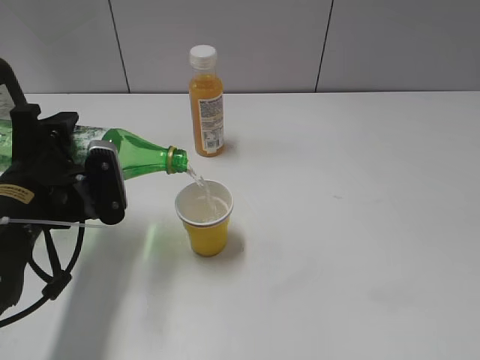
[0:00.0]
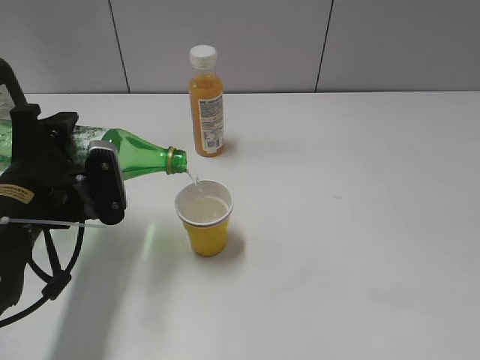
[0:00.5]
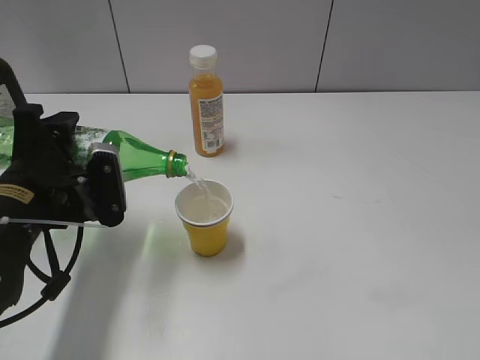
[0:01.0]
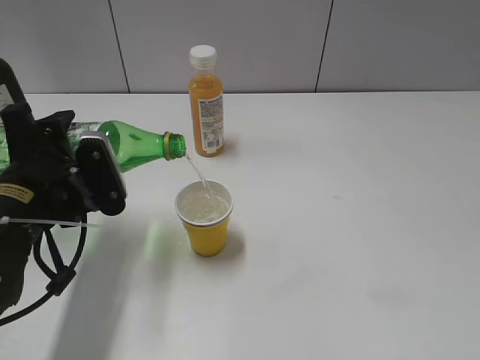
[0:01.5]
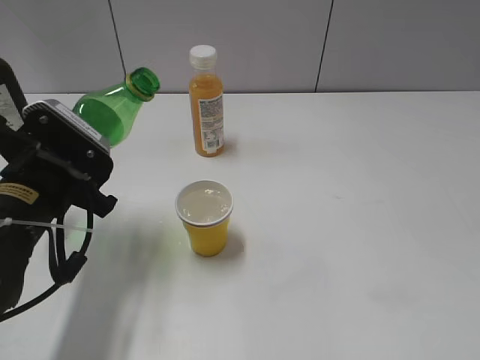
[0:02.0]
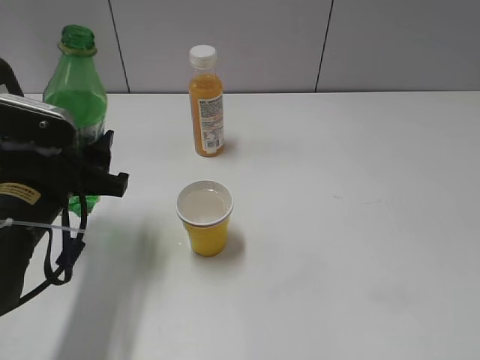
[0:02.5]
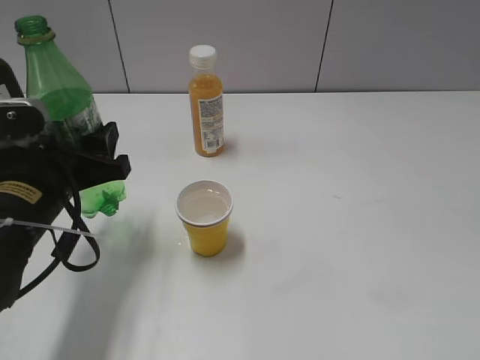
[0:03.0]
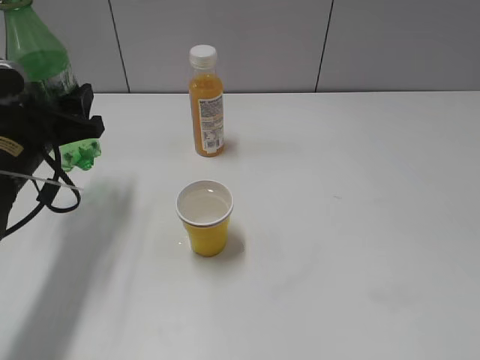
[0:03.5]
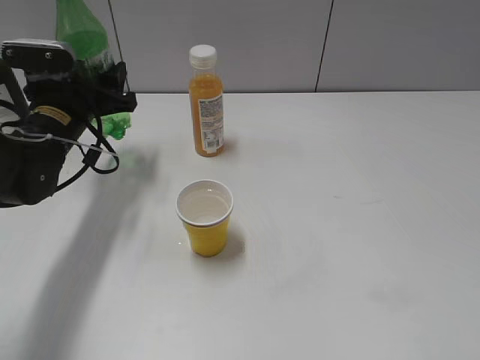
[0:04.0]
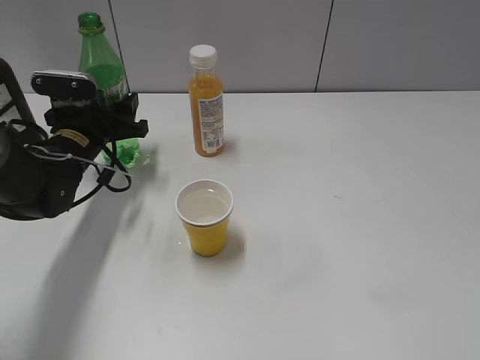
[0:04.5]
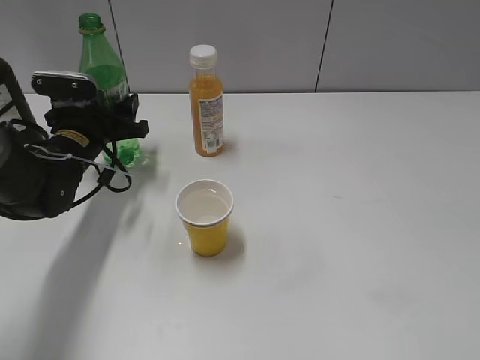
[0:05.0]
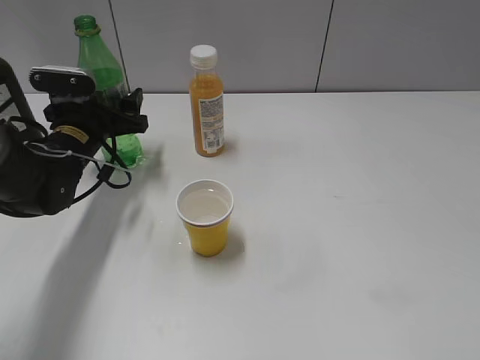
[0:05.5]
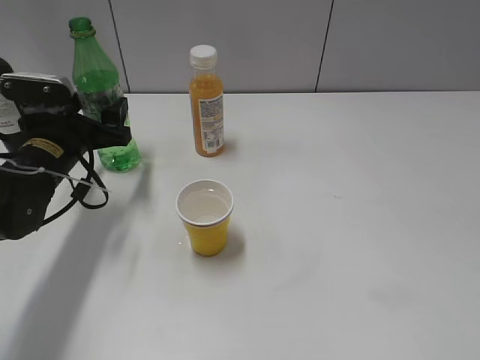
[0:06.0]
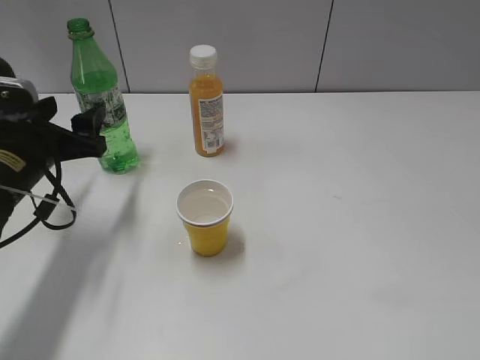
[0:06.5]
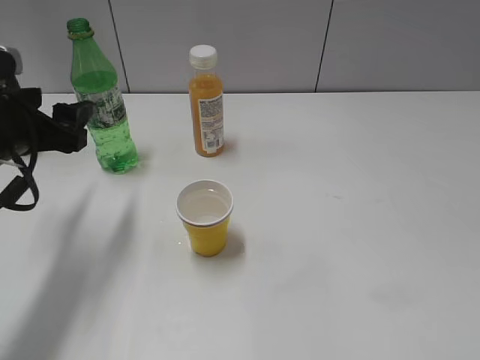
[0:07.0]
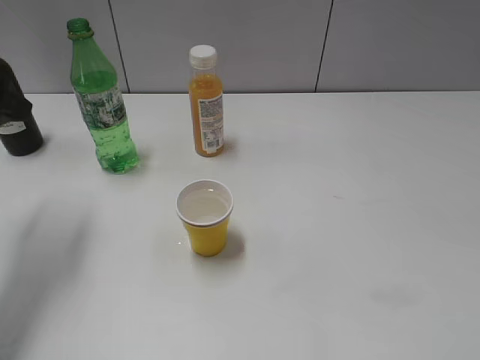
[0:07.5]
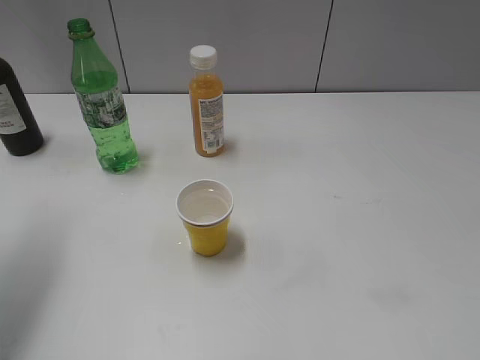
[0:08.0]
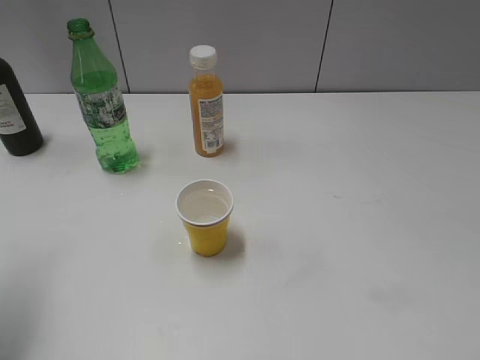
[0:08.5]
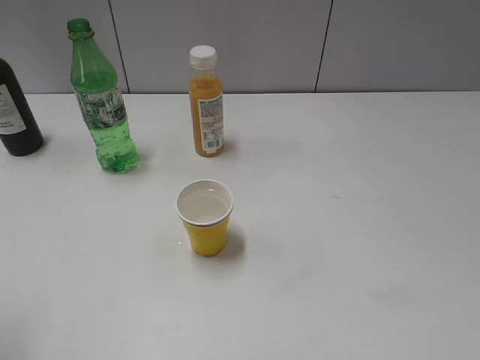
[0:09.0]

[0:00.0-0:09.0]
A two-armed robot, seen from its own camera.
Step, 0:02.0 to 0:06.0: Place the sprite bottle on the table with left gripper.
0:02.0 to 0:04.5: The left gripper moves forward, approximately 15 cm.
0:04.5 to 0:07.0: The left gripper is displaced backward and upward by some 15 cm.
0:07.0 to 0:09.0: The left gripper goes about 20 cm backward and upward.

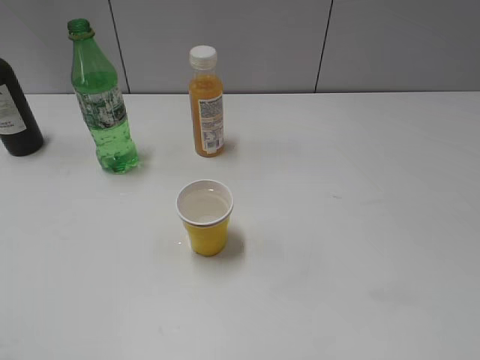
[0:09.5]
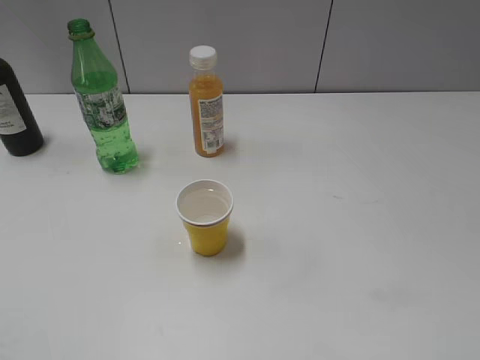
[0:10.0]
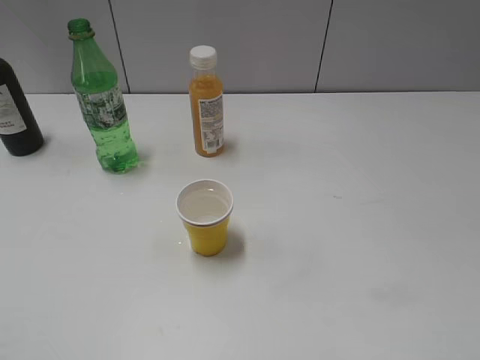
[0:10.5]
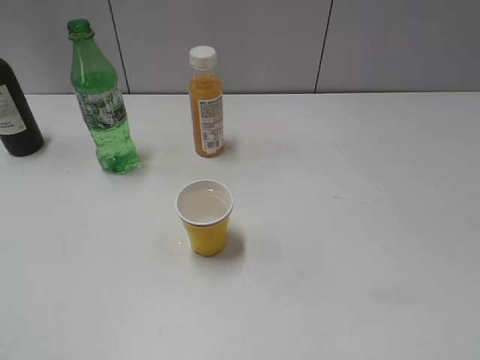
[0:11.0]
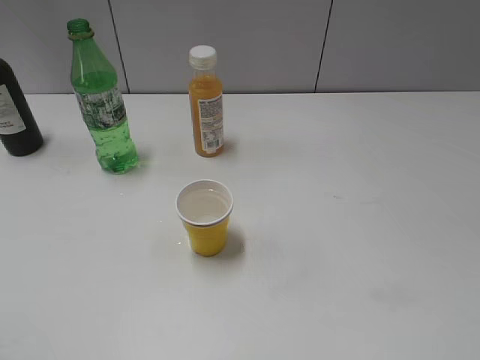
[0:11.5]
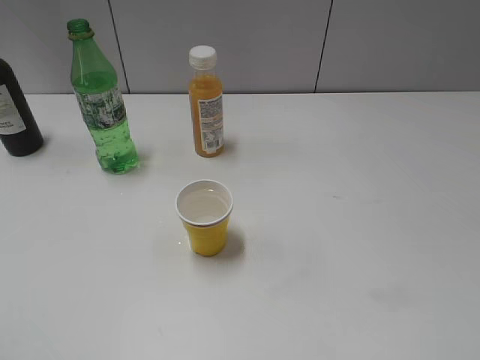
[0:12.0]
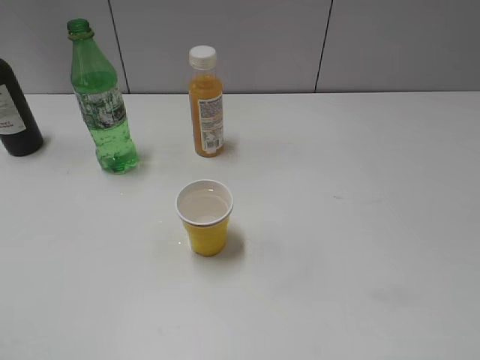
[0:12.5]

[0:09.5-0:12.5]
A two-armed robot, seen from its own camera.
0:11.0 to 0:12.5: Neither gripper changes place.

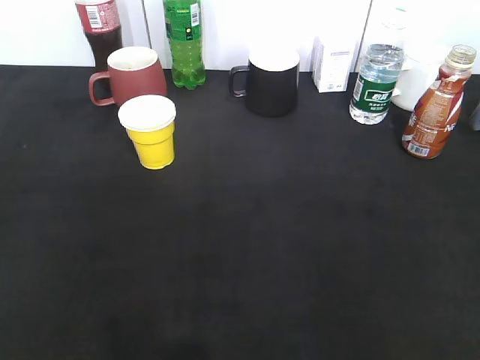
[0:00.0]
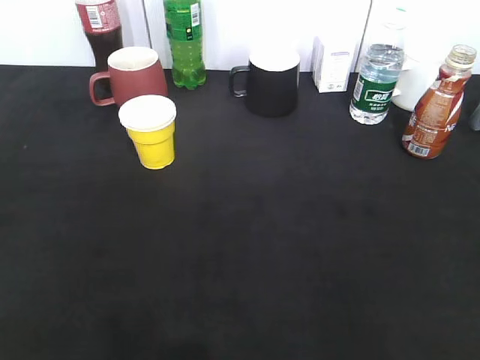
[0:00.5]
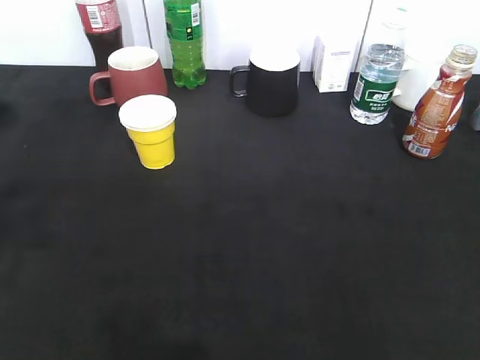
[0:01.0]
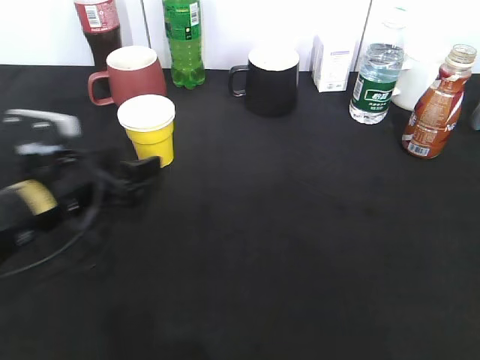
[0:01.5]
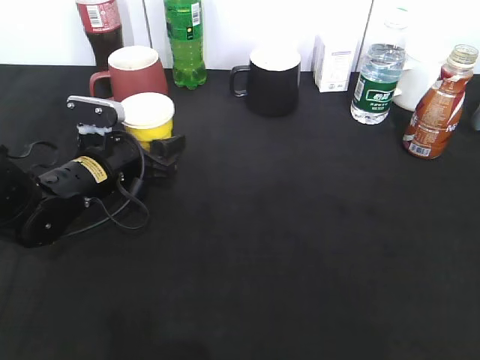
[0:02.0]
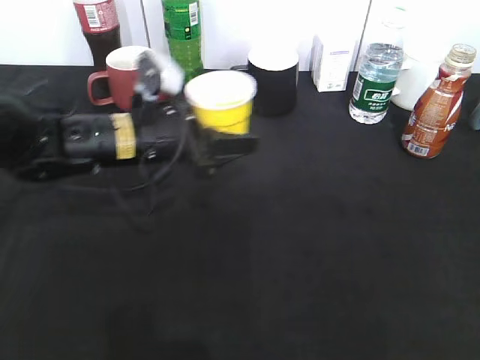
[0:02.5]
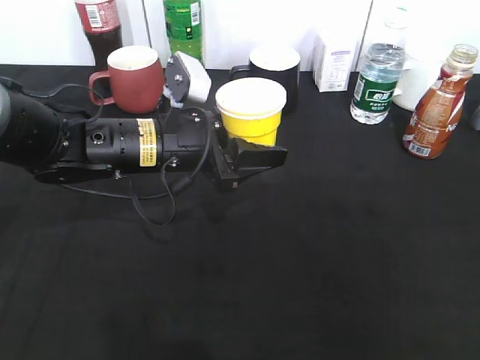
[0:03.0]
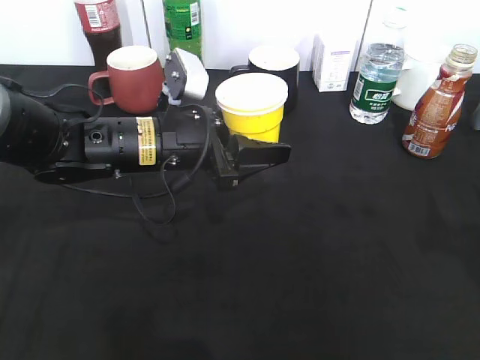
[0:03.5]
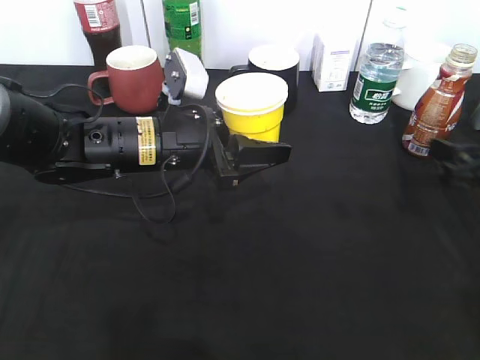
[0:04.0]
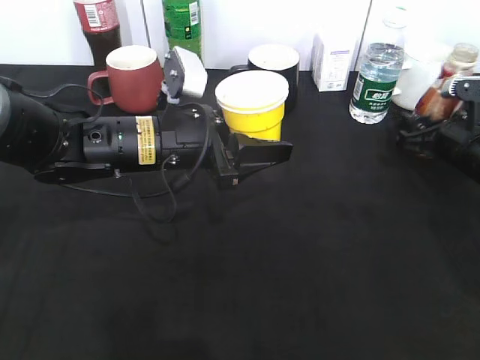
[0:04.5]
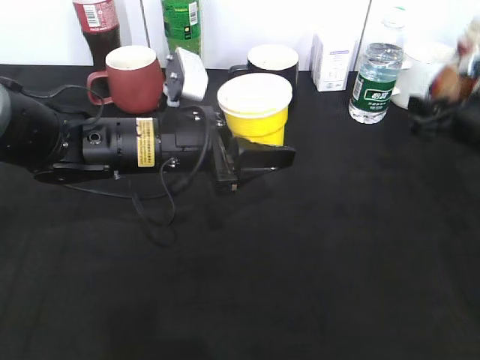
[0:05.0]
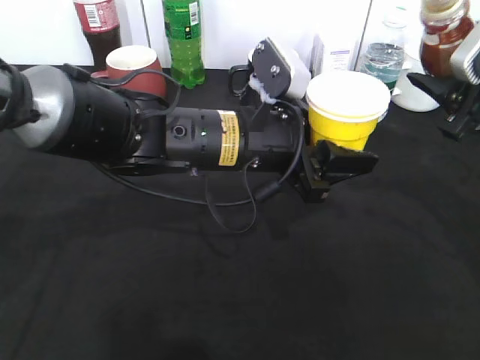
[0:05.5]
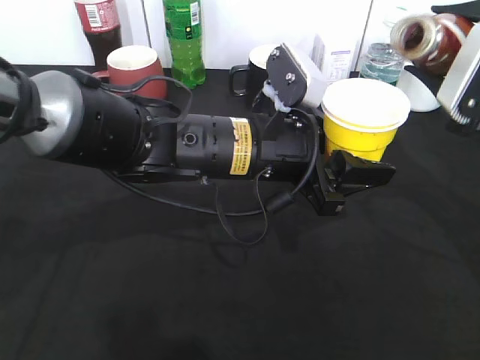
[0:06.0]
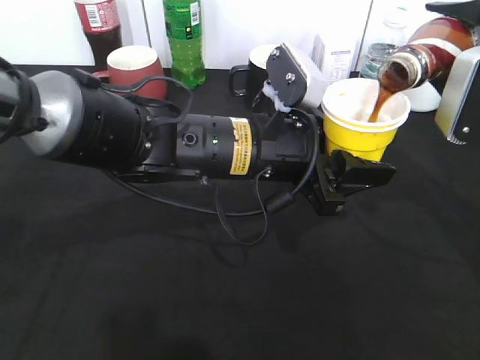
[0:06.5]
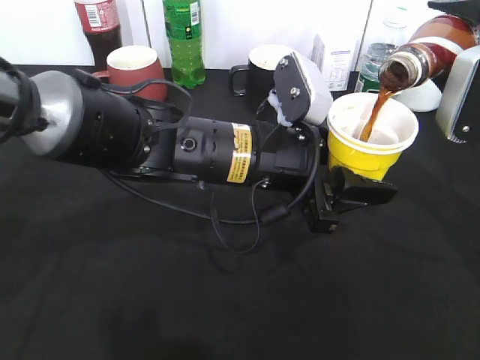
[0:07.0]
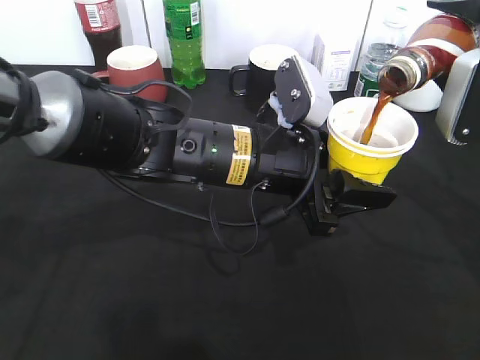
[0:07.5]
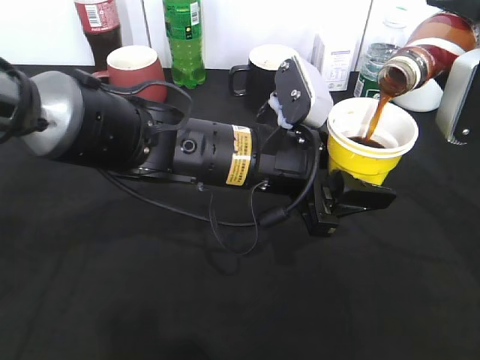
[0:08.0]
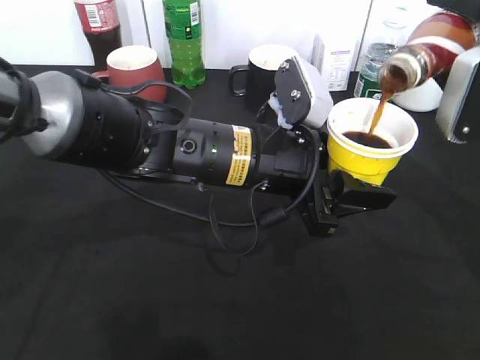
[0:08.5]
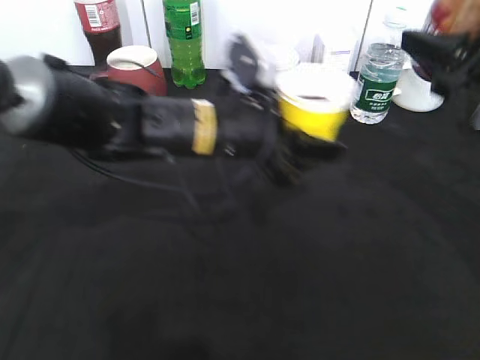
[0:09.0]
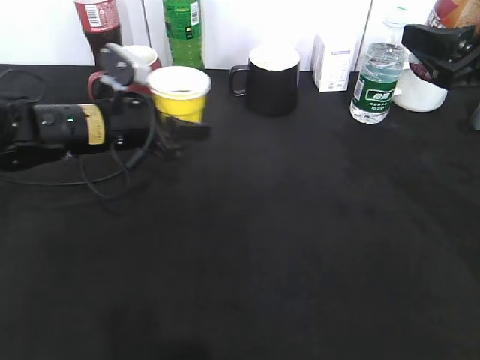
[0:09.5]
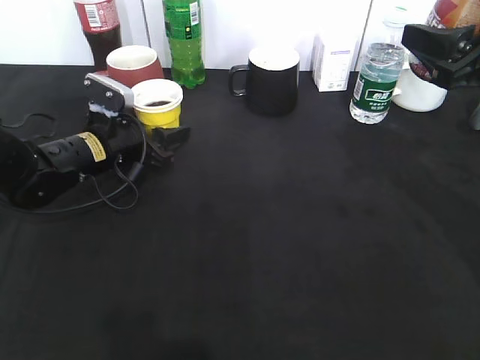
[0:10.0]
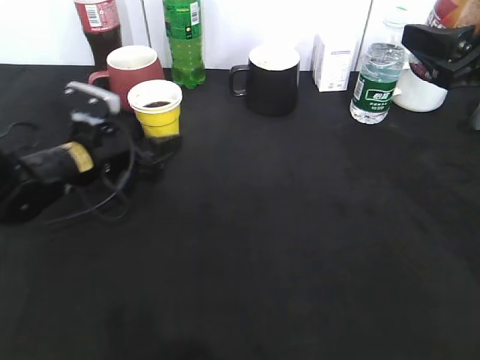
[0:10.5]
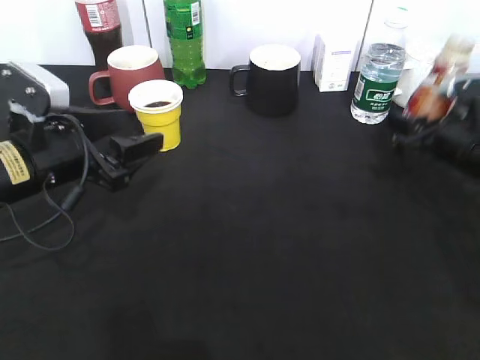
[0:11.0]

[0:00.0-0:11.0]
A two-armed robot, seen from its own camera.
Step, 0:01.0 to 0:02.0: Grasp the yellow paper cup with left gripper.
Step, 0:02.5 to 0:03.5: Lift the yellow paper cup with left gripper.
Step, 0:04.0 to 0:04.5: Grasp the bottle with coffee with right gripper.
Step, 0:05.0 to 0:08.5: Pour the coffee from bottle to cup with right gripper.
Step, 0:09.0 to 0:10.0: Place the yellow paper cup on the table with left gripper.
0:00.0 to 0:02.0: The left gripper moves forward, downward and to the right, roughly 40 cm, and opens, then closes again.
0:02.0 to 0:03.5: The right gripper moves forward, about 15 cm; the left gripper is displaced to the right and upward by roughly 10 cm.
0:03.5 to 0:05.5: The left gripper heads to the right, covering about 10 cm, while the right gripper moves forward, some 15 cm, and opens, then closes again.
0:07.5 to 0:09.0: The left gripper ends up some 5 cm from where it was.
0:09.0 to 0:11.0: The left gripper heads to the left, covering roughly 20 cm, and opens; the right gripper travels downward by about 15 cm.

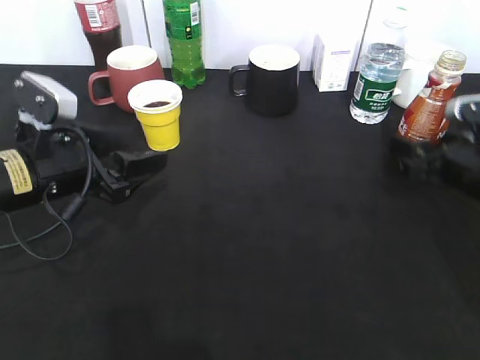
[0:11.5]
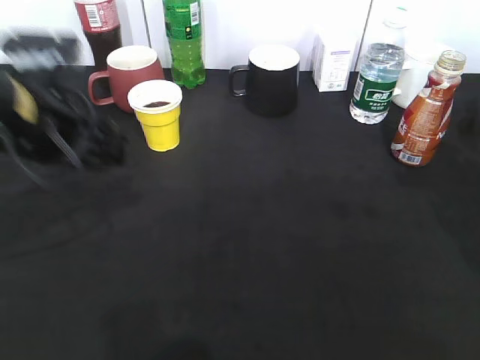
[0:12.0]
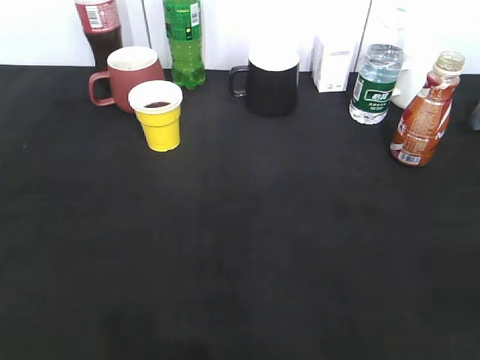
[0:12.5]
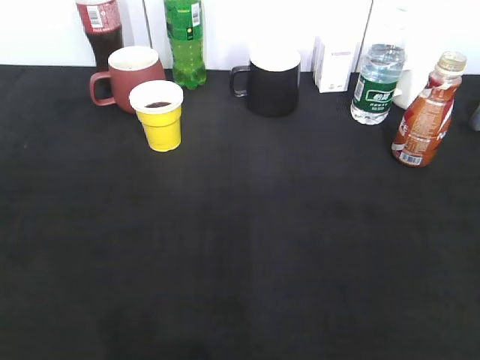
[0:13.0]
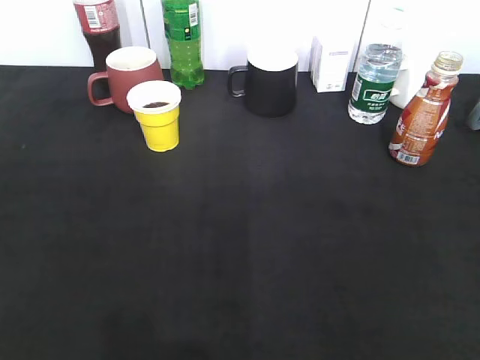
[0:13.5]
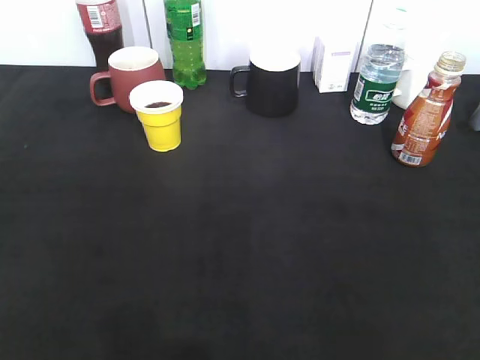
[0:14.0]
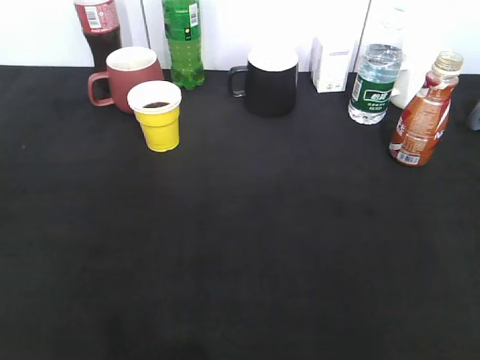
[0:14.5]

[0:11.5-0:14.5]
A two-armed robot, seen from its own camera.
0:11.5 to 0:13.0: The left gripper is displaced backward, upward and to the left by about 30 cm, and closes its fingers, while the right gripper goes about 35 cm backward and upward, and closes up.
